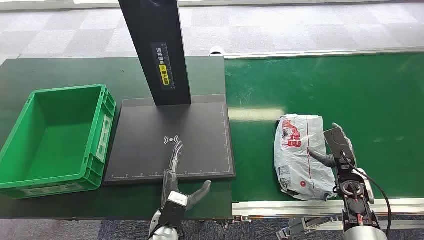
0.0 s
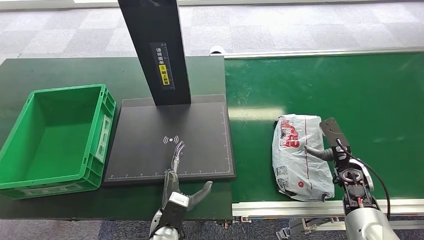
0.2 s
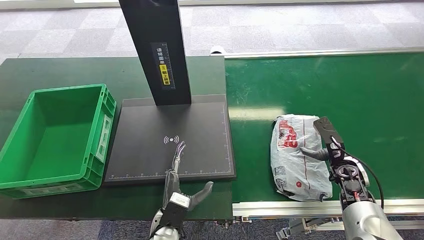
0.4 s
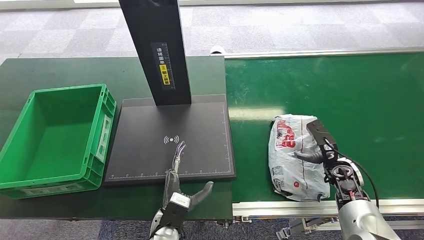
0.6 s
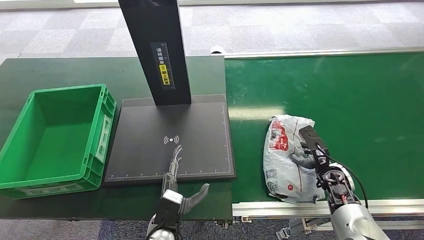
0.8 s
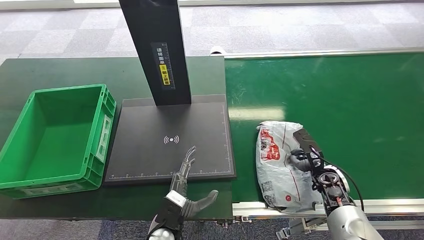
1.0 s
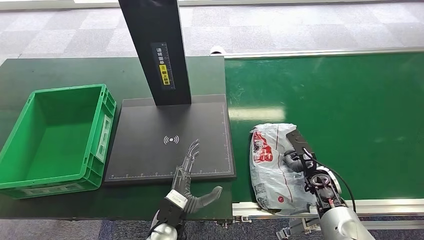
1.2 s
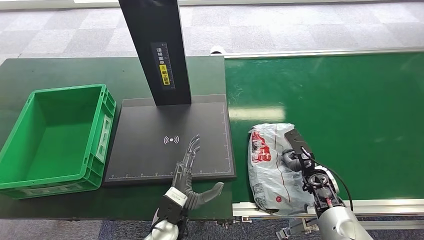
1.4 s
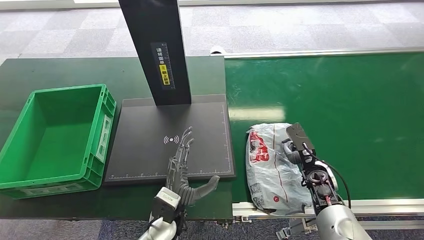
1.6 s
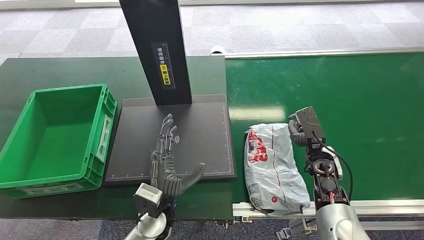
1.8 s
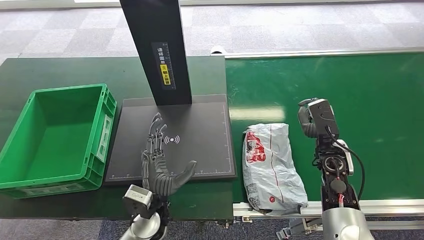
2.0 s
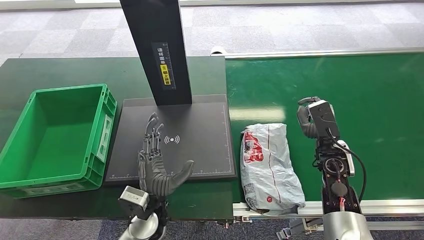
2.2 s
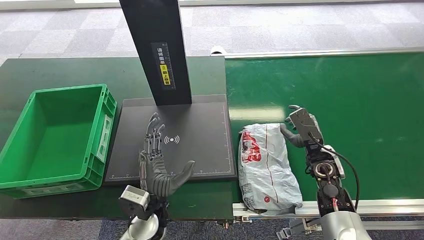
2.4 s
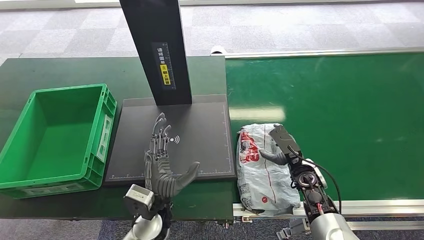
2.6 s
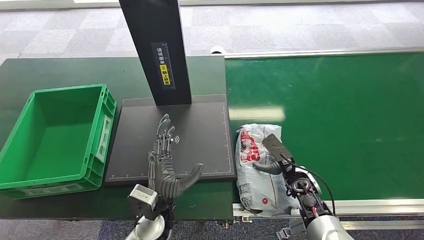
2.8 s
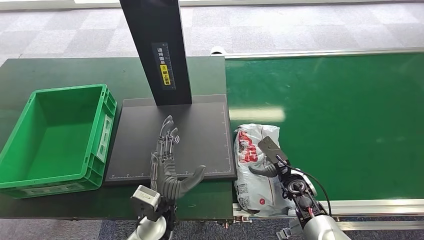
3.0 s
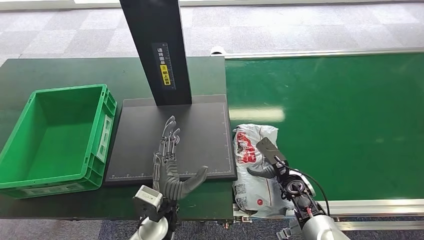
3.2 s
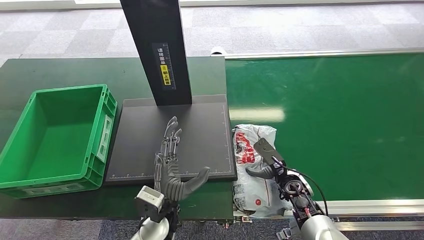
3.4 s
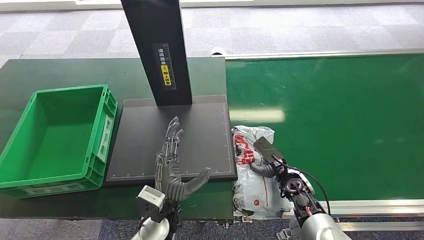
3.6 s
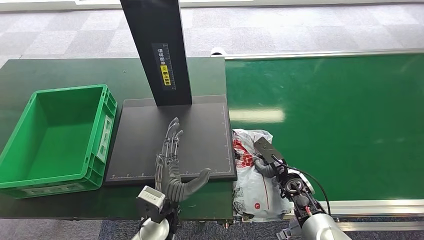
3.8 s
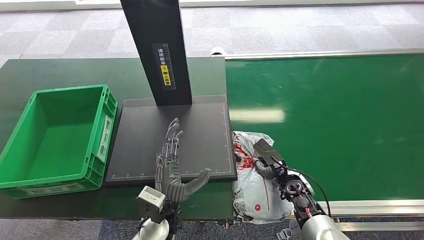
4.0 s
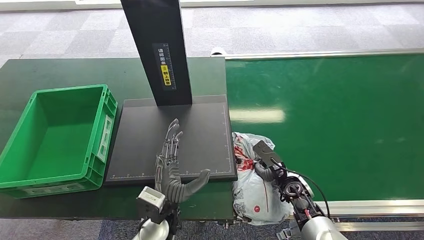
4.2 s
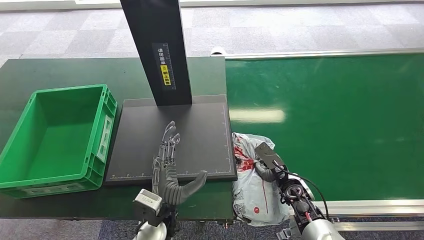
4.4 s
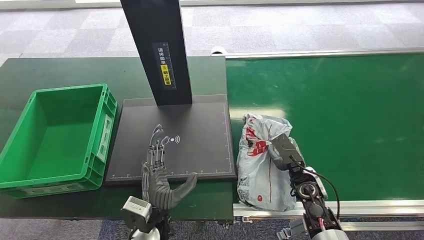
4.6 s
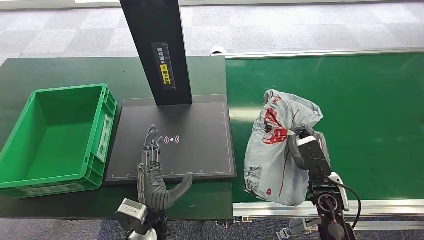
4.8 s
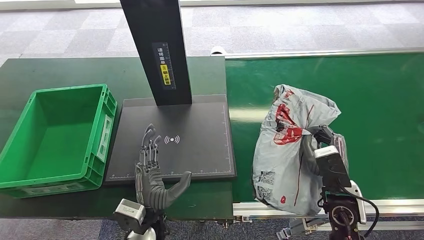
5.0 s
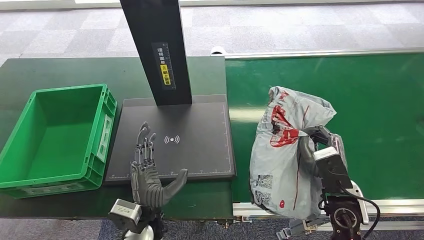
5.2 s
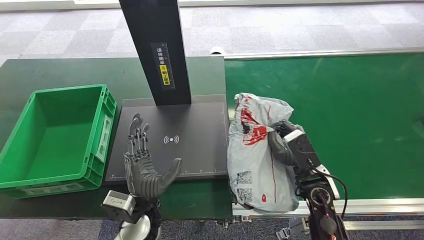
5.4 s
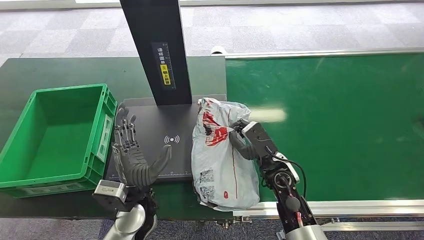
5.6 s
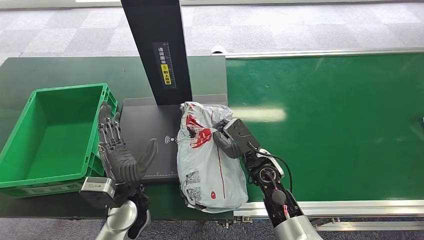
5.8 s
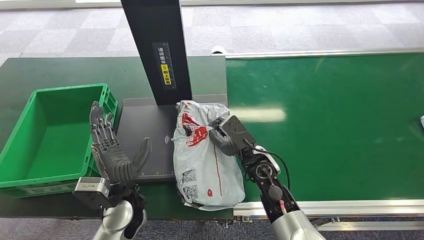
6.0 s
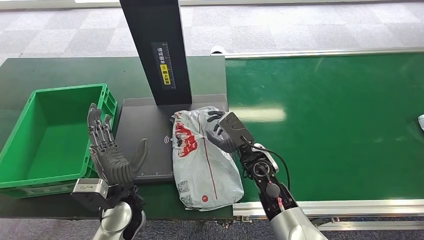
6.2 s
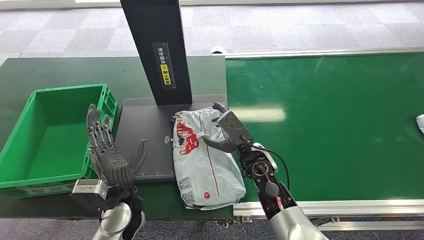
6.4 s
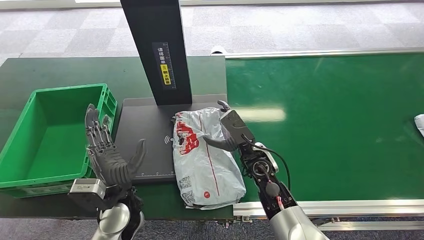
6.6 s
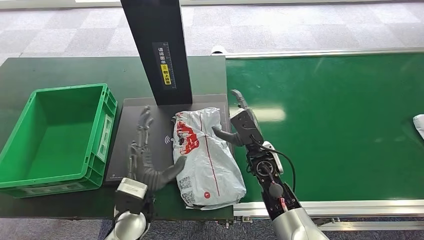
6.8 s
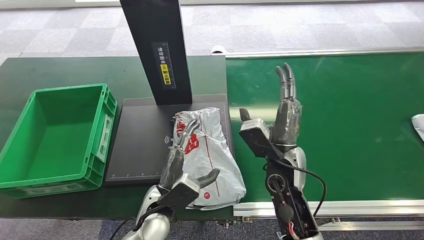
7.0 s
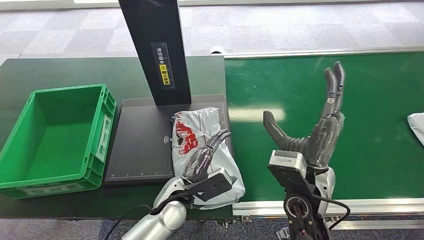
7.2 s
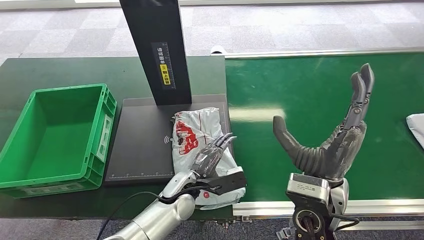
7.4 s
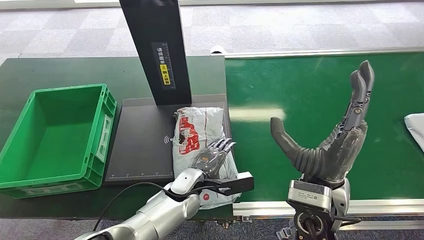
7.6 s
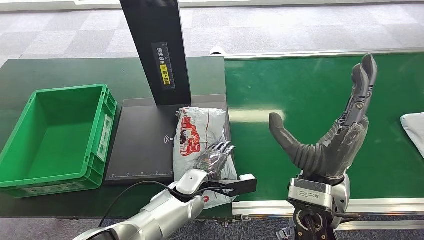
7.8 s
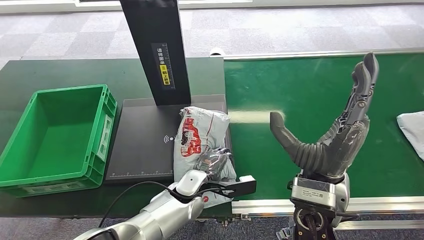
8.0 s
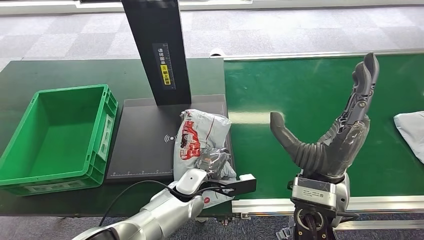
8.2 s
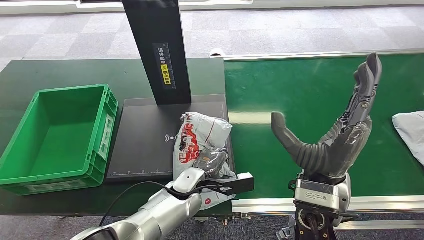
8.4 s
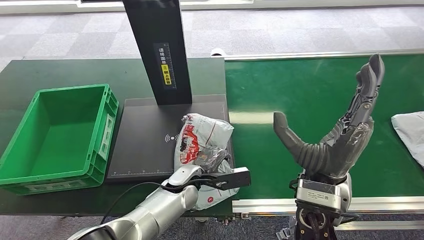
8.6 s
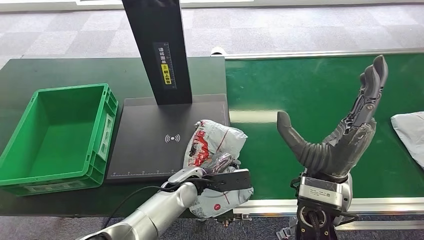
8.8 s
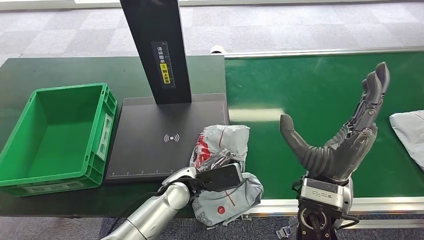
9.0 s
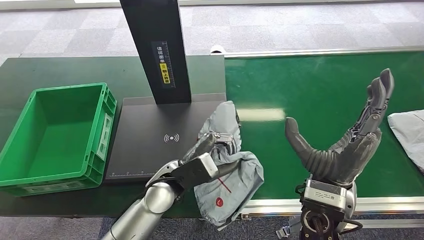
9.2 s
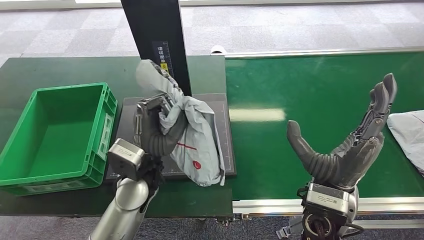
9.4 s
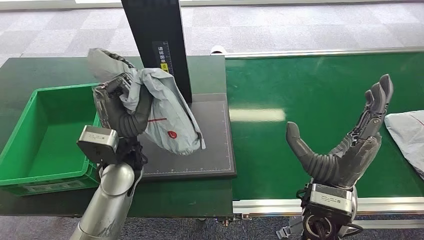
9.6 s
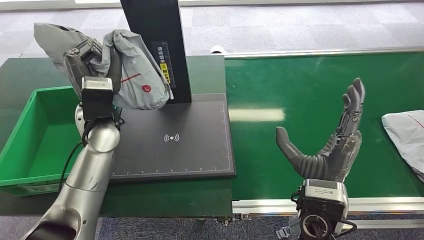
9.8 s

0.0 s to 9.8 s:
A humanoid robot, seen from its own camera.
Step, 0.0 to 4.8 s: Pick up the package from the conveyor belt.
Step, 5.0 to 7.2 s: Place the package onto the inbound machine.
1.4 to 2.8 s: The right hand reaches roughly 10 cm upward, then returns. Meanwhile the left hand ends up approximately 5 cm from where it was.
2.8 to 4.2 s: The hands make only small movements.
4.2 to 5.6 s: The left hand is displaced to the left by some 5 cm; the right hand moves upward and to the left, some 10 cm.
5.6 to 7.0 s: The right hand is displaced upward by roughly 5 cm.

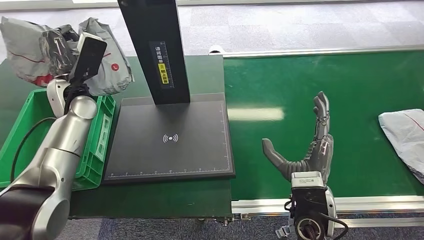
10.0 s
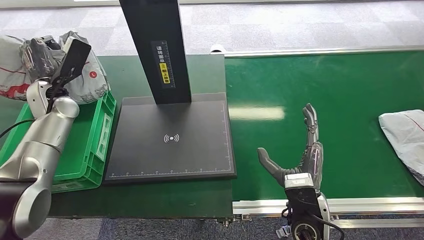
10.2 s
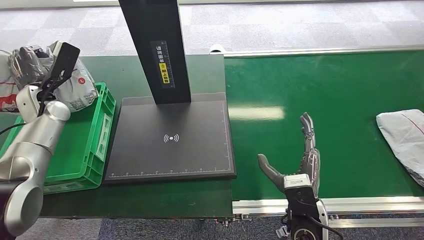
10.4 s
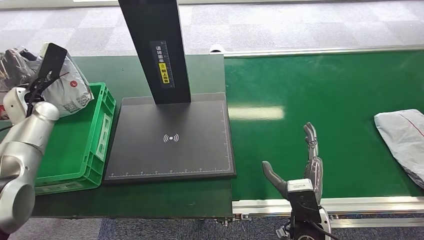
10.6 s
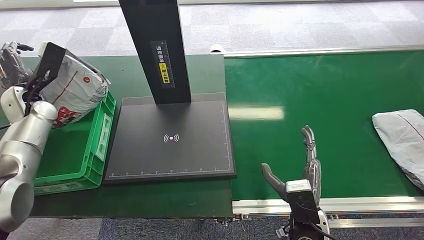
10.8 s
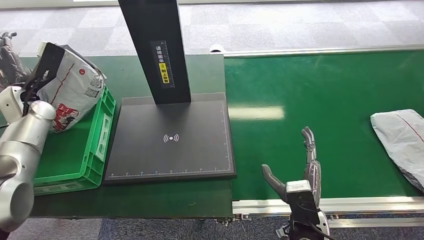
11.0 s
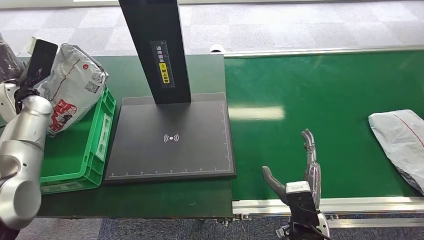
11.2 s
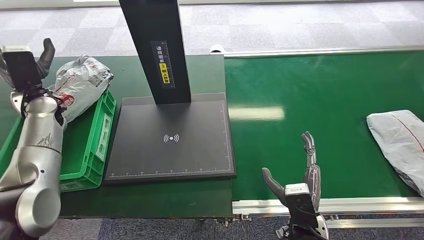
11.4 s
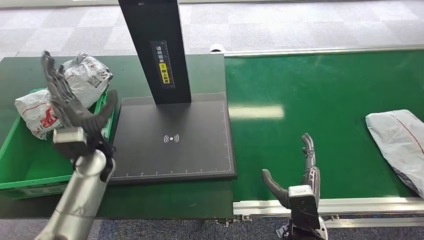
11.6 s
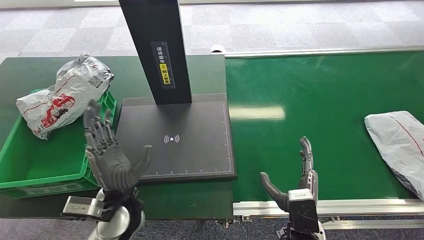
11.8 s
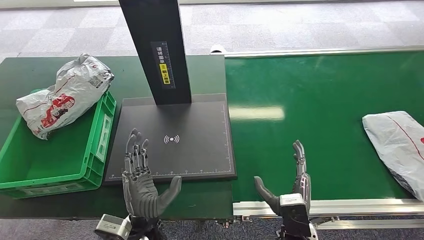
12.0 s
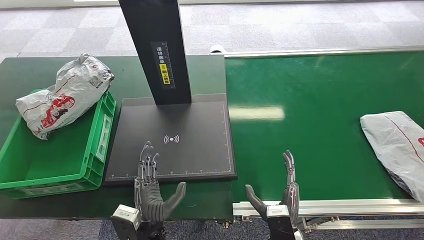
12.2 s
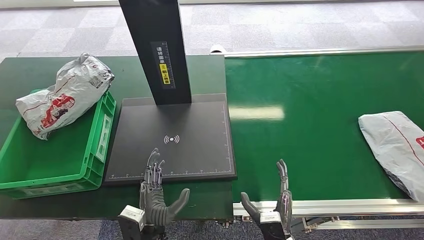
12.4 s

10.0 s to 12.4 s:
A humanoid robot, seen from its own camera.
Step, 10.2 to 12.4 s: Place the package into the parcel locker.
